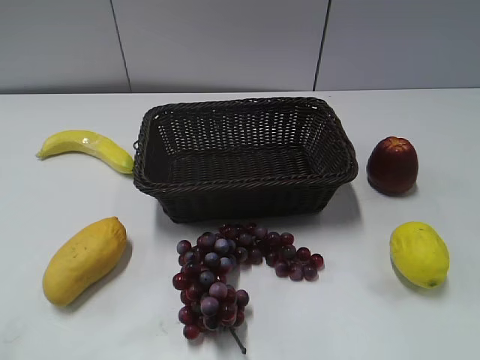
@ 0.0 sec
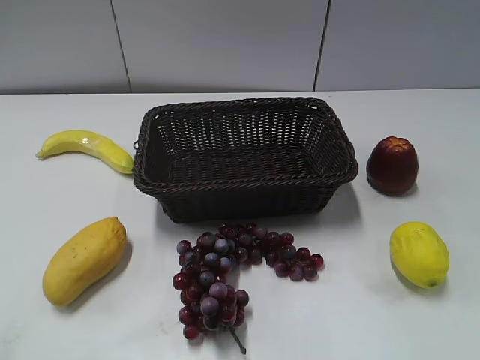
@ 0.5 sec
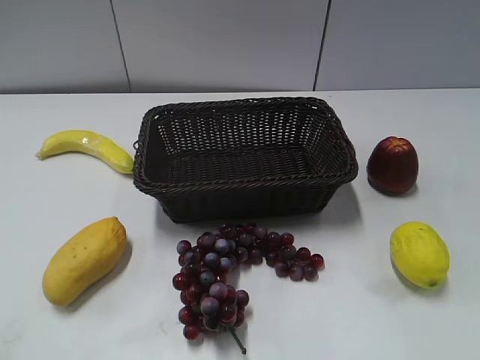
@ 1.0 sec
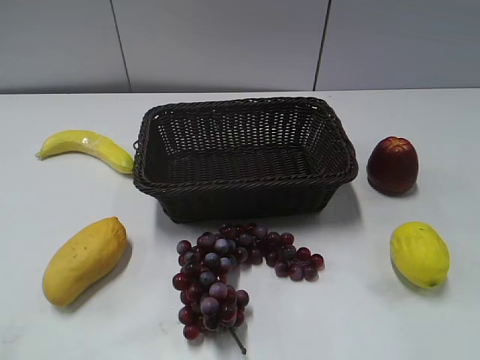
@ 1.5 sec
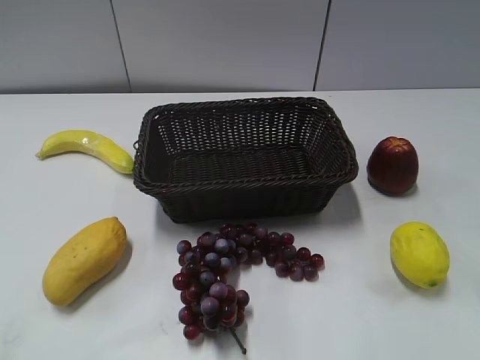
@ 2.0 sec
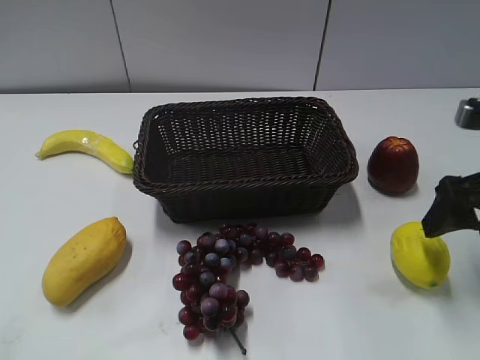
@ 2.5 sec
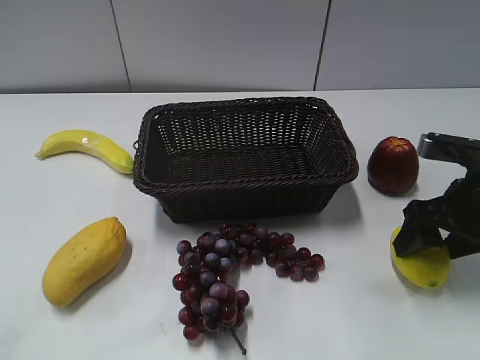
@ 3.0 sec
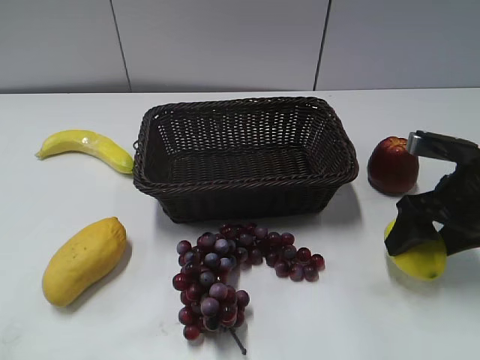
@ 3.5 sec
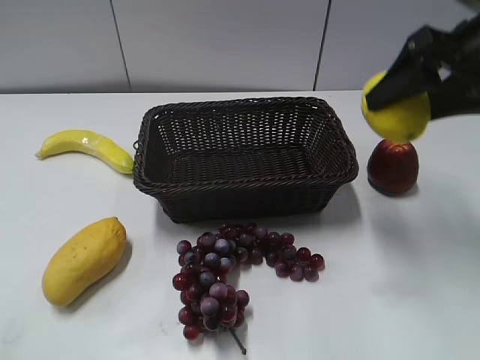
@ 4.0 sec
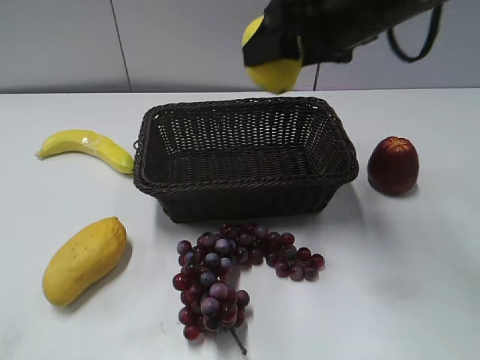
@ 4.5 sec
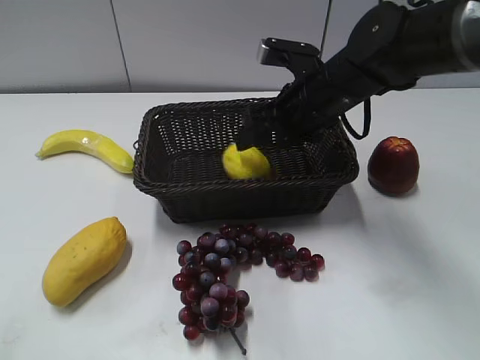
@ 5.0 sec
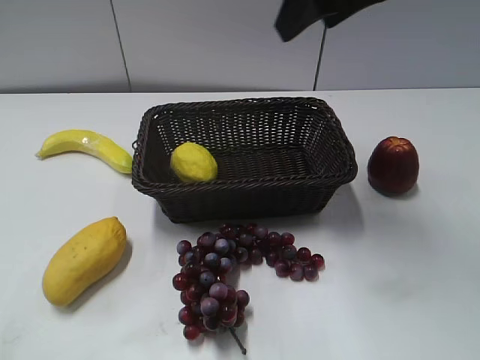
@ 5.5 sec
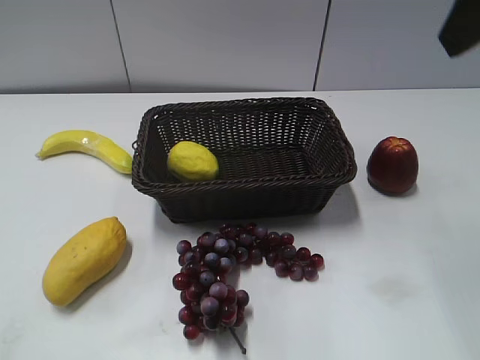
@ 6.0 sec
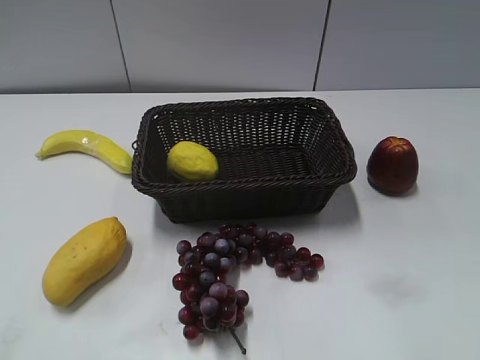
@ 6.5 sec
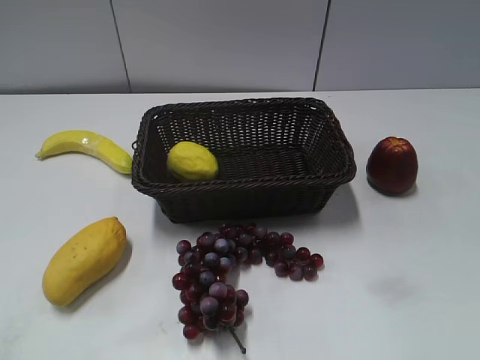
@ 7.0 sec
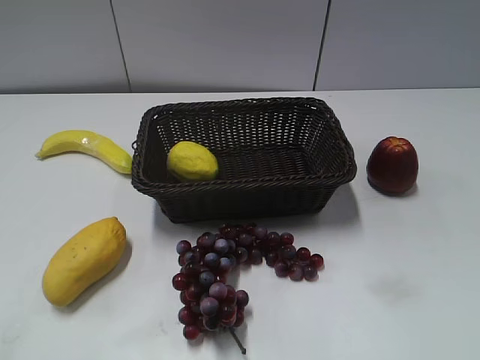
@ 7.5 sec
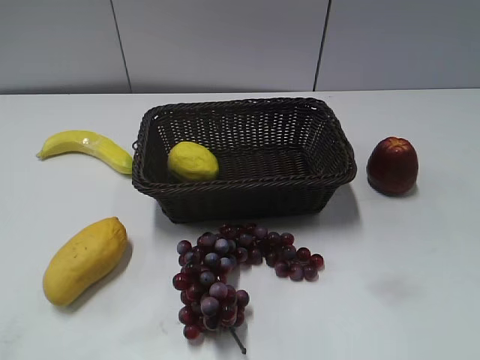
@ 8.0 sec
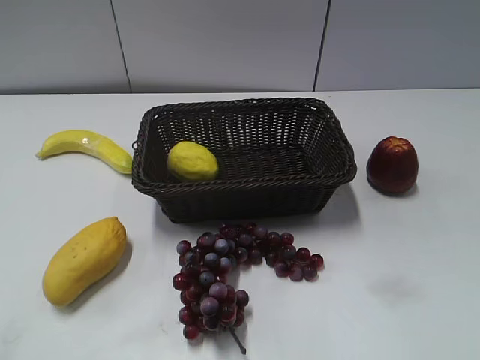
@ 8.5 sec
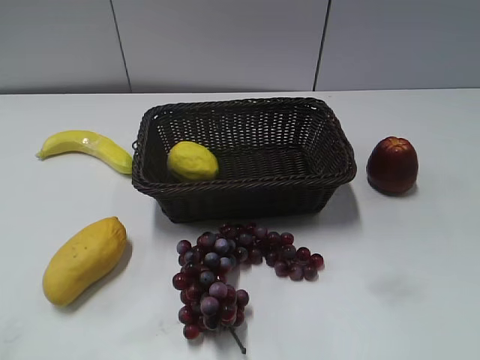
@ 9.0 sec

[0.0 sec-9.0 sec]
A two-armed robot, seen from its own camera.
Step, 2.5 sec to 3.0 sec: Grasp the lemon with right gripper.
Step, 3.5 sec to 5.0 sec: Place the lemon in the basket with right gripper.
2.0 sec to 4.5 sec: The right gripper travels forward and to the left by some 25 cm, and closes up.
4.5 sec to 7.0 sec: The right gripper heads backward and to the right, covering approximately 35 cm, and opens and closes again.
